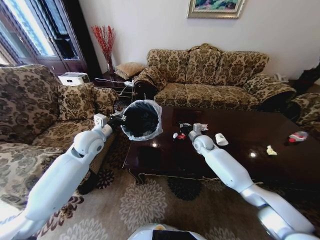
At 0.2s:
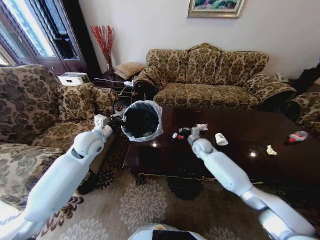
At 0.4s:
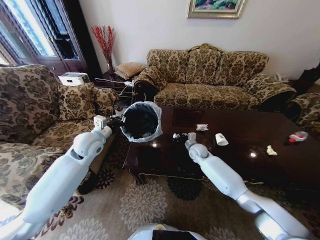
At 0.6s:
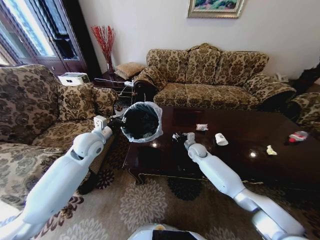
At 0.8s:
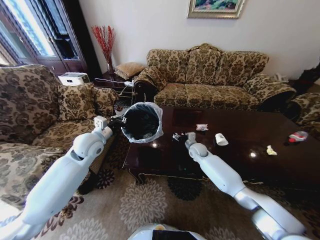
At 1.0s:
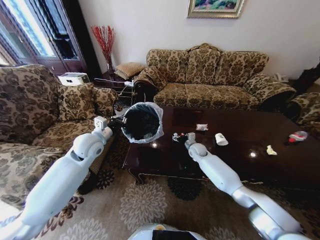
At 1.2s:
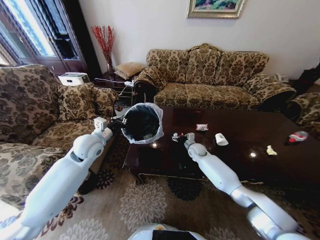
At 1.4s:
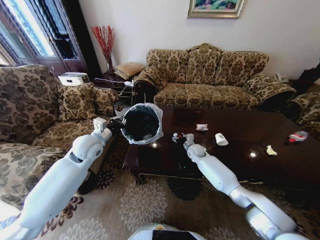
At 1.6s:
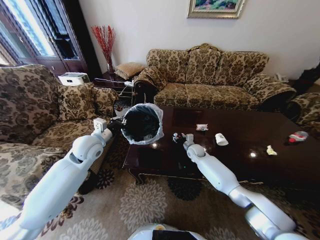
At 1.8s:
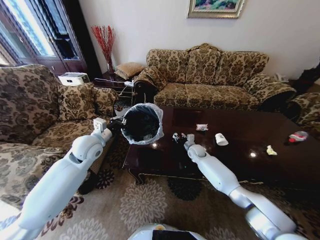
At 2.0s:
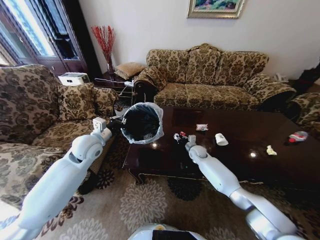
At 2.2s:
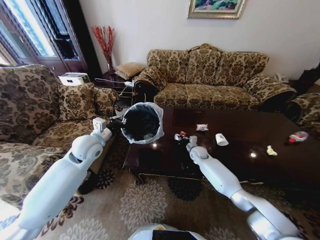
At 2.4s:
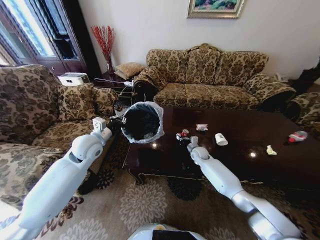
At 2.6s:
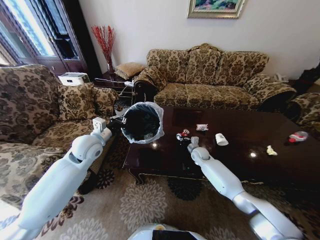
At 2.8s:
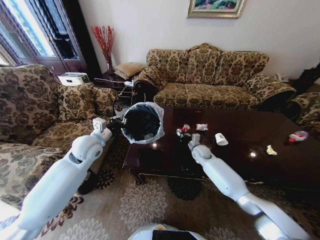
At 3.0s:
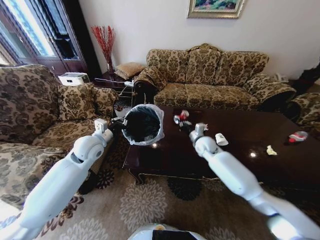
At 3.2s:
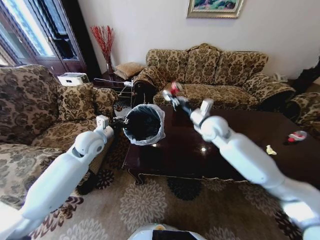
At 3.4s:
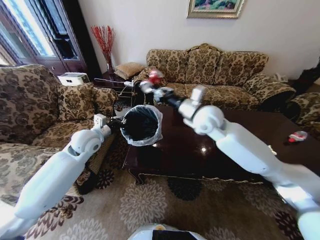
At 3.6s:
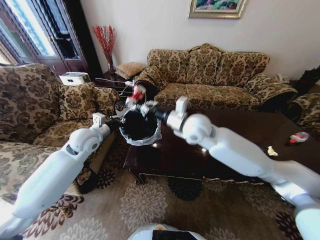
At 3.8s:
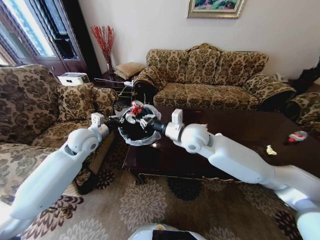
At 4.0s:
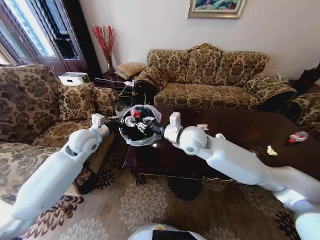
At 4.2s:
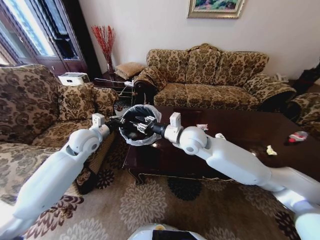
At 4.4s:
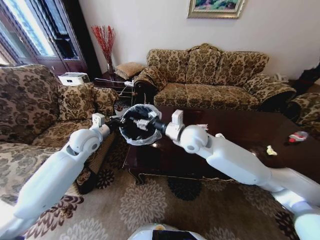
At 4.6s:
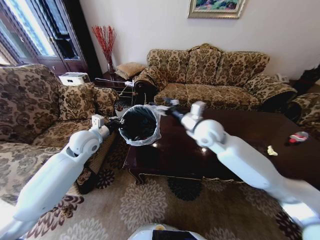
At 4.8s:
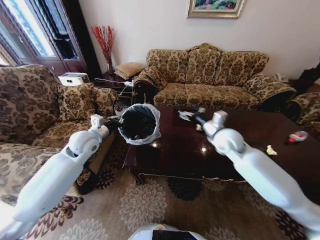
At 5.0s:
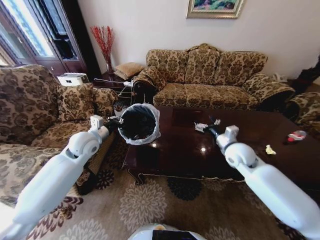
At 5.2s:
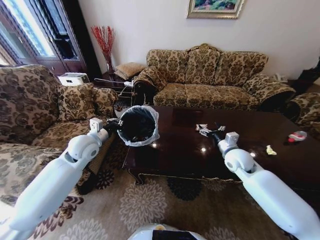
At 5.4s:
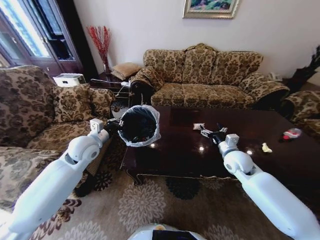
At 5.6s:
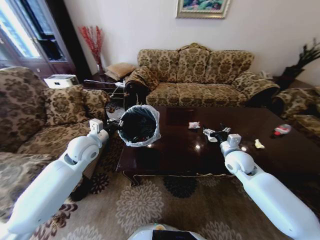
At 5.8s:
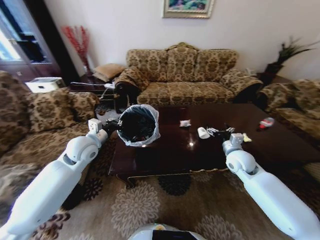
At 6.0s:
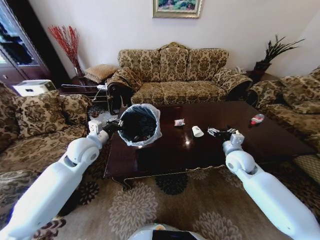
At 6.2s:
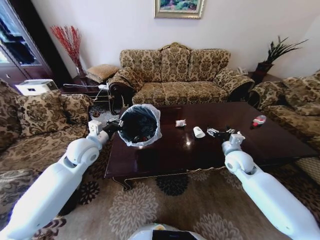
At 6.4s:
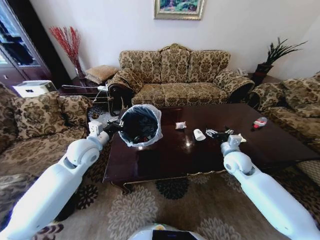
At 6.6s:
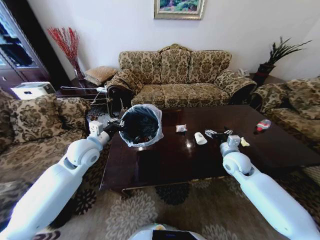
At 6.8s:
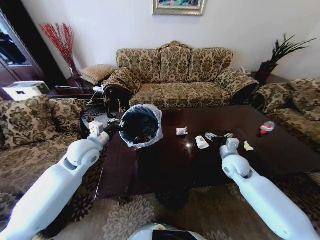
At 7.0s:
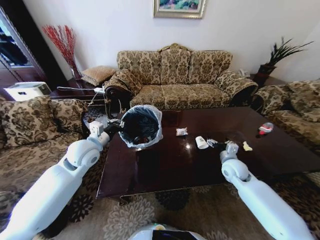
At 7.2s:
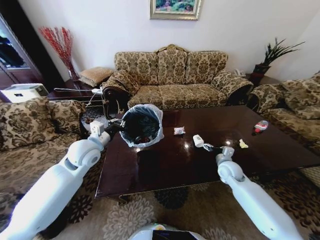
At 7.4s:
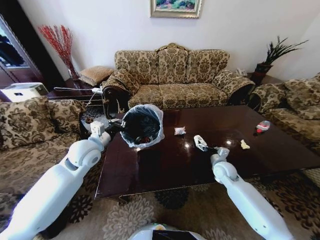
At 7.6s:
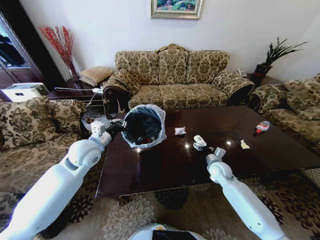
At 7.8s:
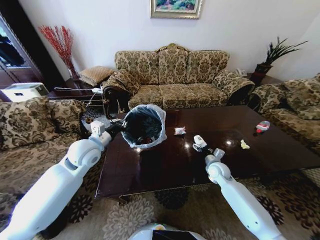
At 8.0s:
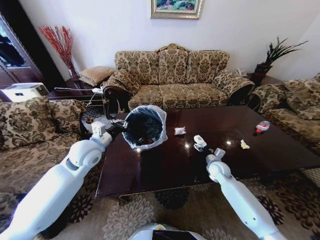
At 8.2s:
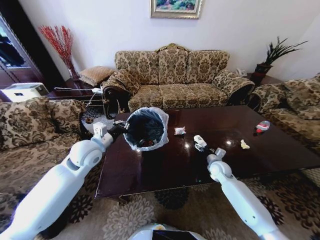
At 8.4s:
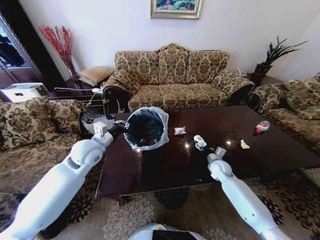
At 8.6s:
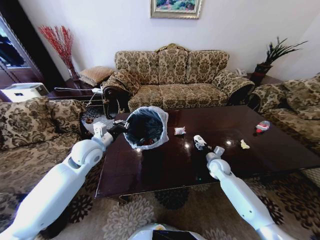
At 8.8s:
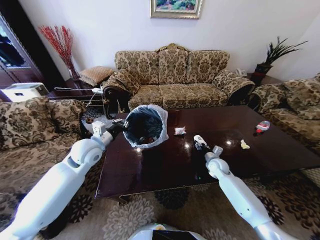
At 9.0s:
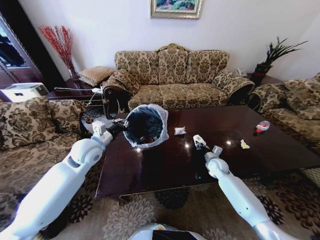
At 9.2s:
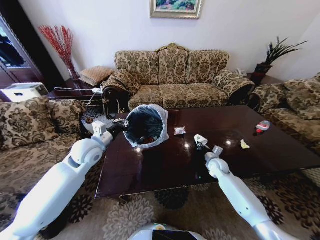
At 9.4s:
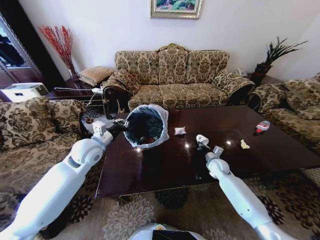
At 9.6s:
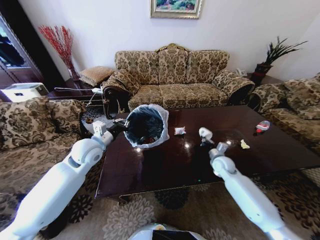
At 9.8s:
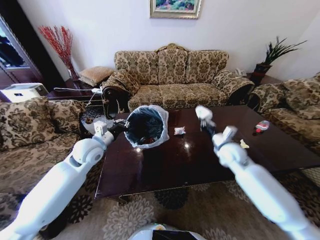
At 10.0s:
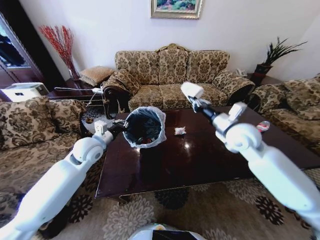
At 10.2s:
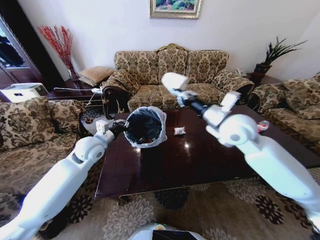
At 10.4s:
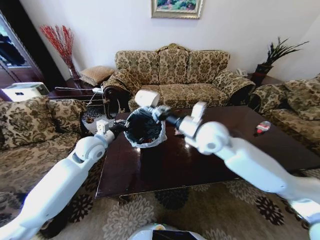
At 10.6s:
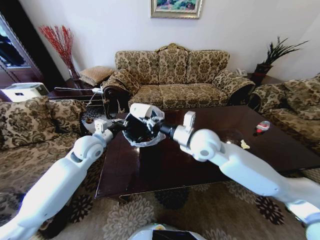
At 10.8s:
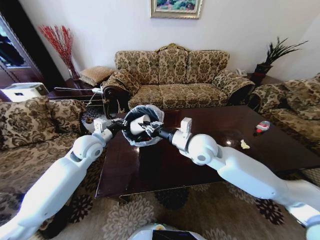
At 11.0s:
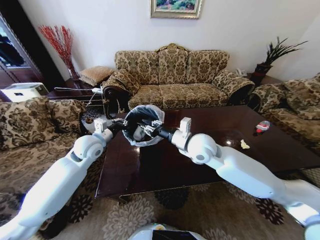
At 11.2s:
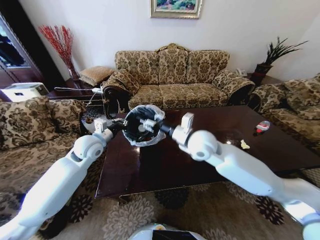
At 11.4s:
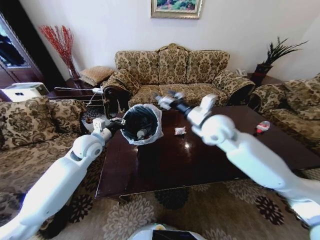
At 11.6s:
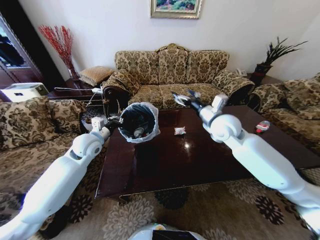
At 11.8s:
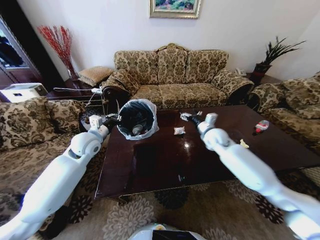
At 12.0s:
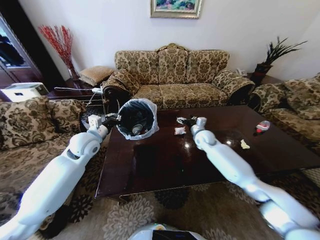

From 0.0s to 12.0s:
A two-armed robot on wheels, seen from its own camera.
Task of the whole recording: Move to the front of the table and place the trash on the table into the trash bin.
From 0.0s to 1.6s: The right gripper heads downward, covering roughly 10 cm, and opens its fingers.
From 1.6s to 3.0s: The right gripper goes roughly 15 cm upward, and closes its fingers.
From 3.0s to 4.4s: The right gripper heads upward, to the left and backward, covering roughly 20 cm, and opens its fingers.
From 4.4s to 6.0s: The right gripper travels to the right and downward by roughly 25 cm, and opens up.
From 6.0s to 7.6s: The right gripper shifts roughly 10 cm downward.
From 7.6s to 9.0s: The right gripper ends up about 5 cm from where it was, and closes its fingers.
From 9.0s to 10.4s: The right gripper is displaced upward and to the left by about 35 cm.
From 10.4s to 12.0s: The right gripper swings up and down, about 20 cm each way, with 2 reversals, and opens up.

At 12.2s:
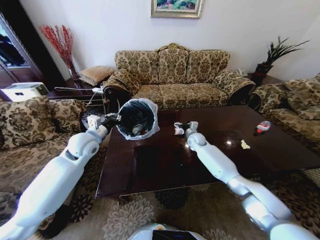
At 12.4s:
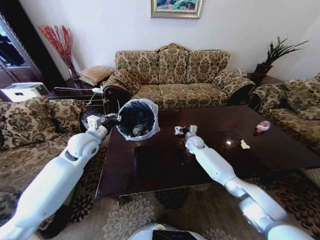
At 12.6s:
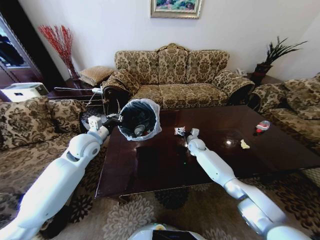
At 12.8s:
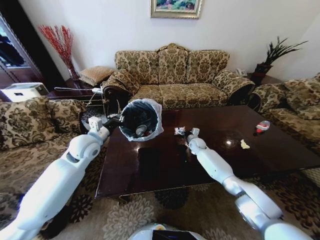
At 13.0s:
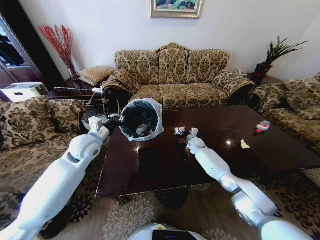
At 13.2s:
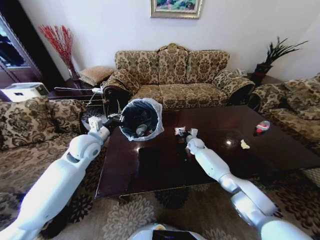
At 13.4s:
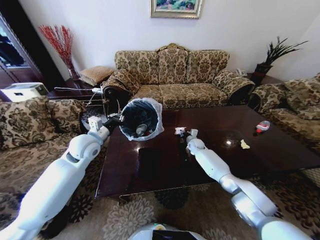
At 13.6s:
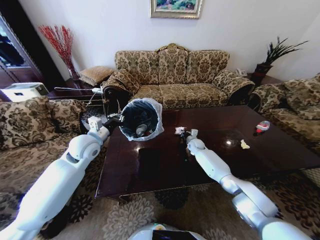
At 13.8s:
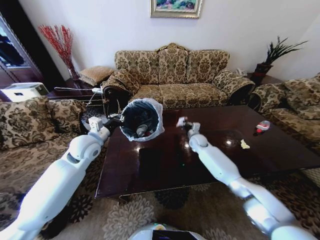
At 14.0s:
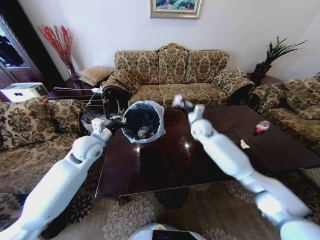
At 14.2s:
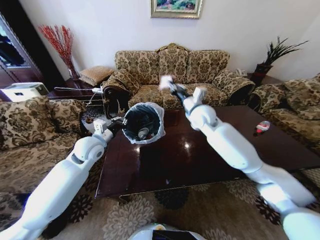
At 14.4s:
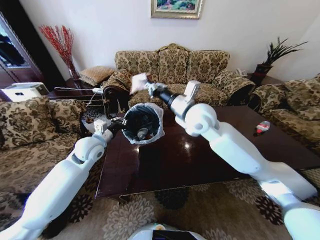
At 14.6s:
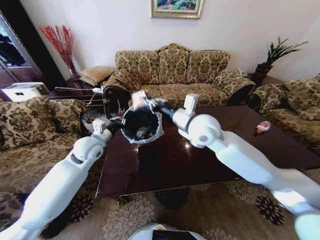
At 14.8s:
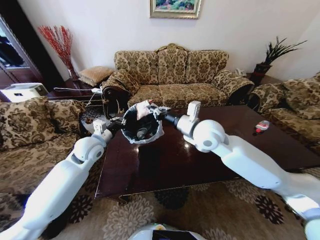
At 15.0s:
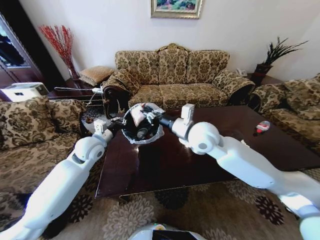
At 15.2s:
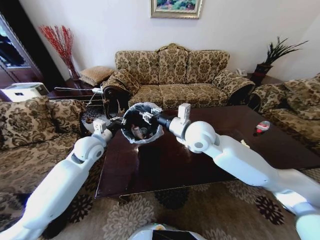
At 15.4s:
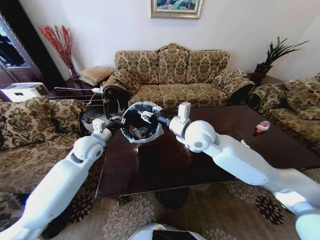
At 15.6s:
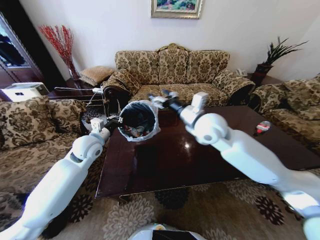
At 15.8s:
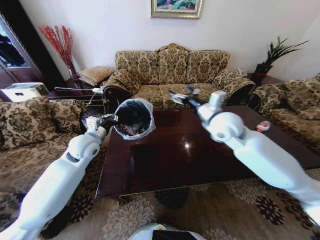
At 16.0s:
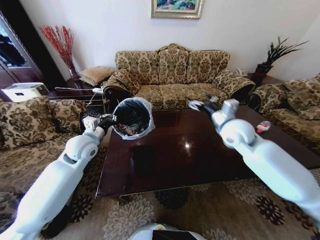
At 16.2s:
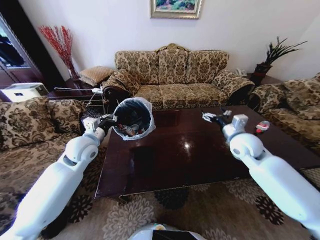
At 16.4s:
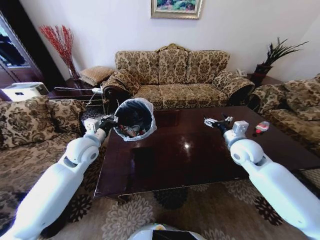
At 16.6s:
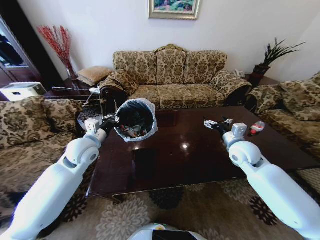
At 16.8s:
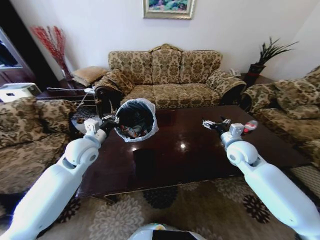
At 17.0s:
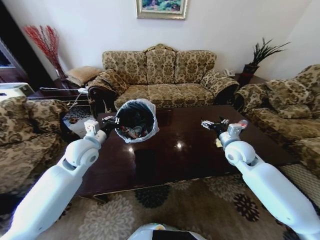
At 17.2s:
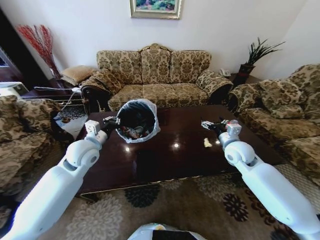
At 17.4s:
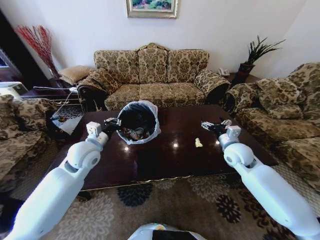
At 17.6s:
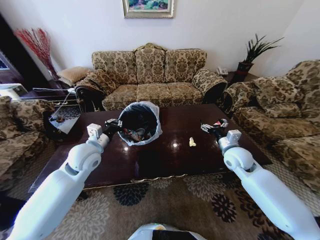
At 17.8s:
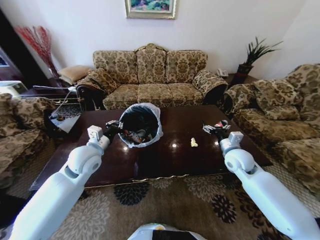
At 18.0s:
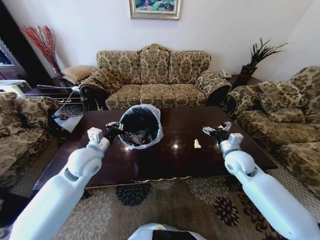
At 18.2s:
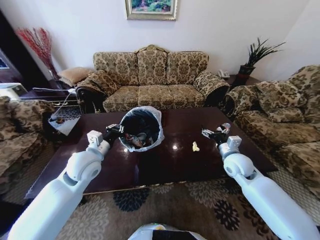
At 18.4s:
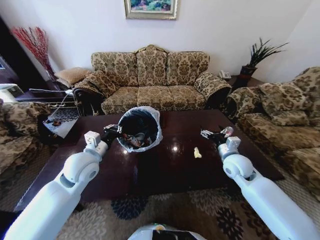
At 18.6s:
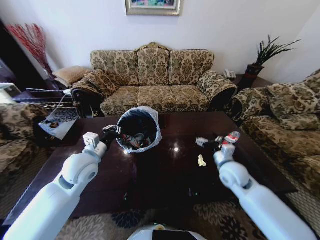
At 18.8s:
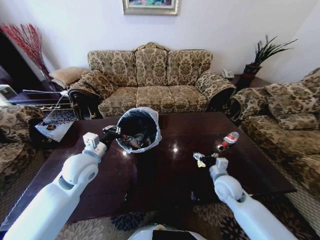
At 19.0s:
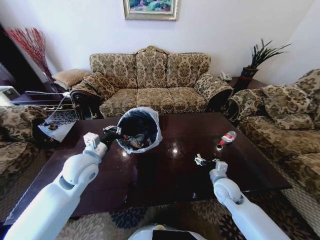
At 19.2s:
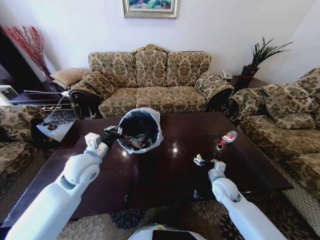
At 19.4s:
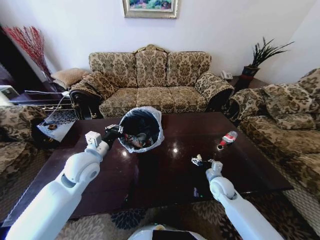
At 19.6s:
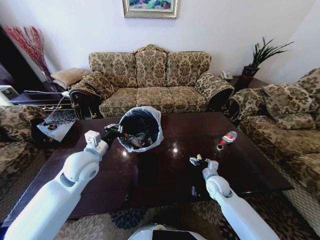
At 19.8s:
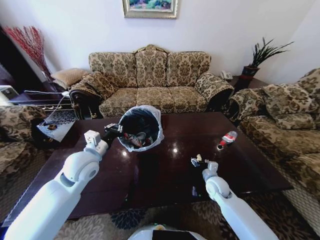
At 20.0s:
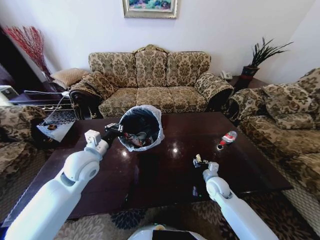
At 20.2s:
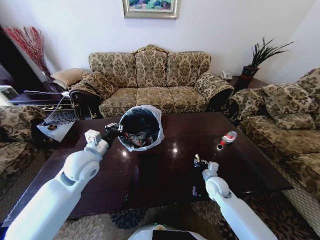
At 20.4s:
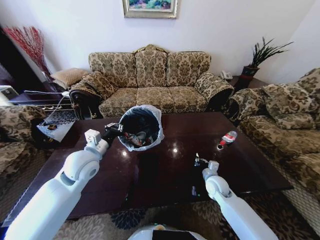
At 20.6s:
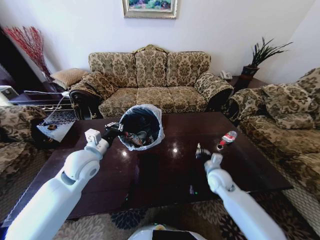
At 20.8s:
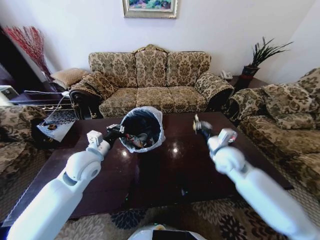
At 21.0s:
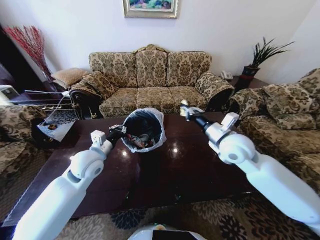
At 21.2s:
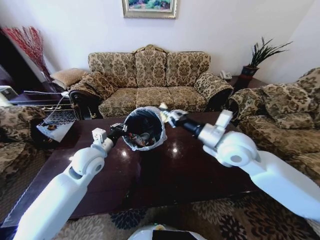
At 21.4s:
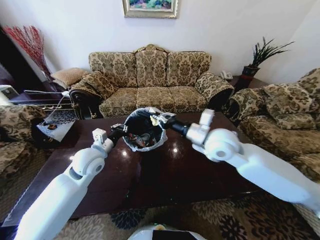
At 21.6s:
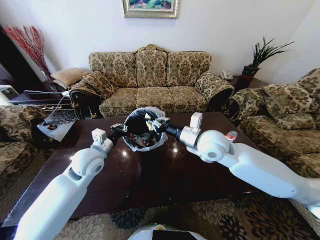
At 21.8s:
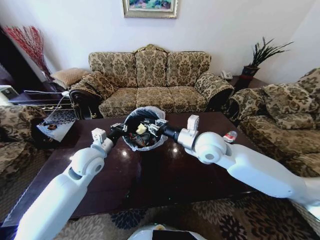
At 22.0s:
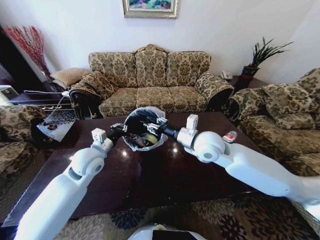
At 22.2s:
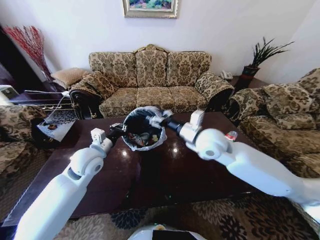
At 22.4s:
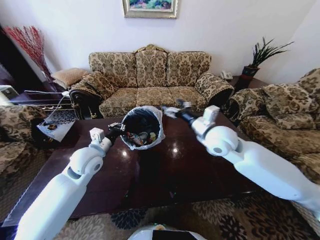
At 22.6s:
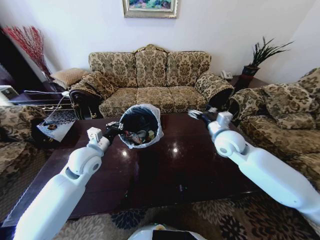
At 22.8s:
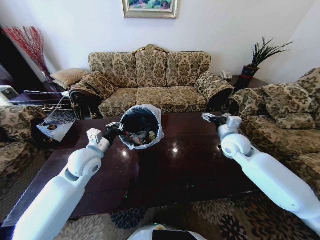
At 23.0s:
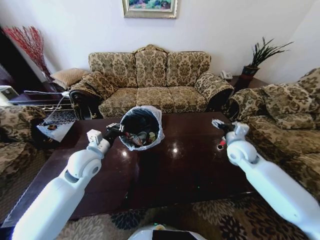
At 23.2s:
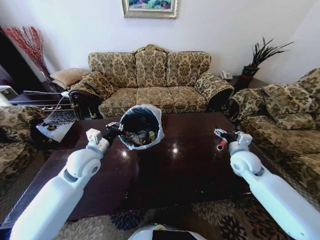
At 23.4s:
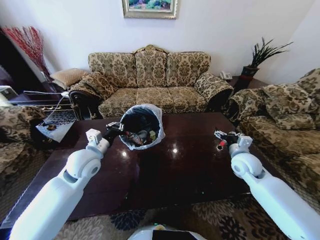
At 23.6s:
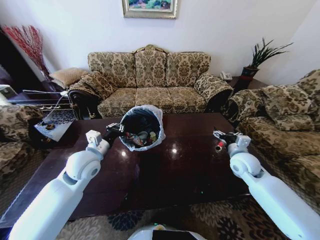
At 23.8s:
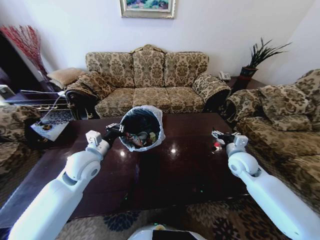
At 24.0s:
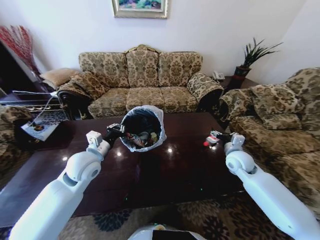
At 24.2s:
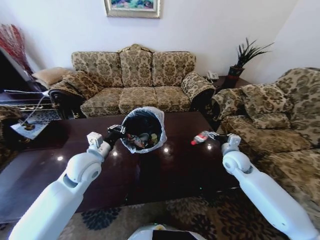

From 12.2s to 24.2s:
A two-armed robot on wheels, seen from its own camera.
Task of the whole recording: Move to the front of the table and place the trash on the table into the trash bin.
From 12.2s to 13.8s: The right gripper closes.
From 13.8s to 15.2s: The right gripper is displaced upward, backward and to the left by about 30 cm.
From 15.2s to 16.6s: The right gripper goes some 25 cm to the right and downward, and opens.
From 16.6s to 18.2s: The left gripper changes place by roughly 5 cm. The right gripper heads downward, covering about 5 cm.
From 18.2s to 19.8s: The right gripper moves downward, about 15 cm.
From 19.8s to 21.2s: The right gripper goes about 30 cm upward, and closes.
From 21.2s to 22.6s: The right gripper travels forward and downward by some 10 cm, and opens up.
From 22.6s to 24.2s: The right gripper heads downward and to the right, covering roughly 15 cm.
